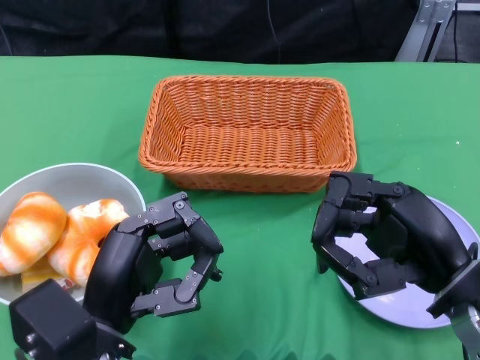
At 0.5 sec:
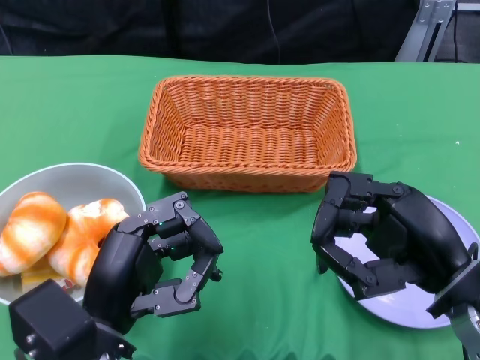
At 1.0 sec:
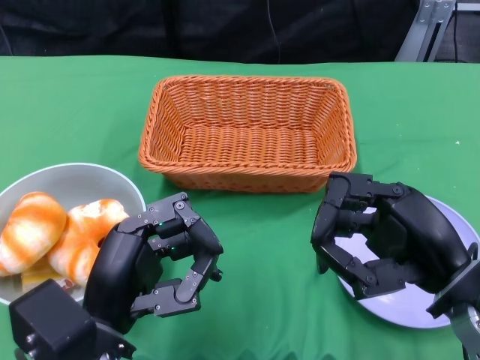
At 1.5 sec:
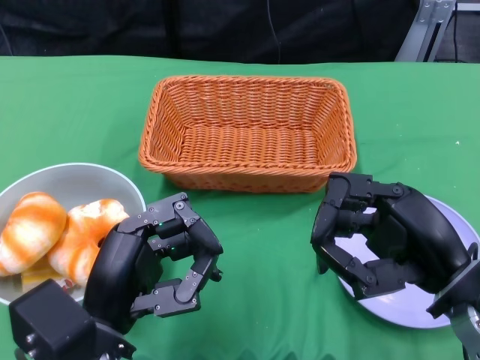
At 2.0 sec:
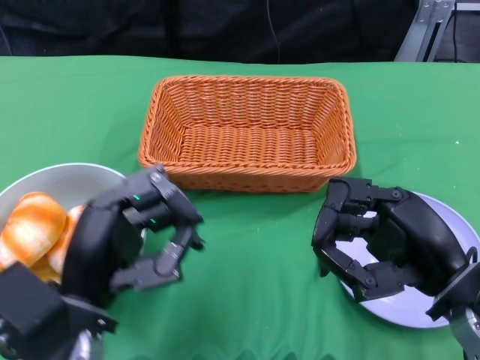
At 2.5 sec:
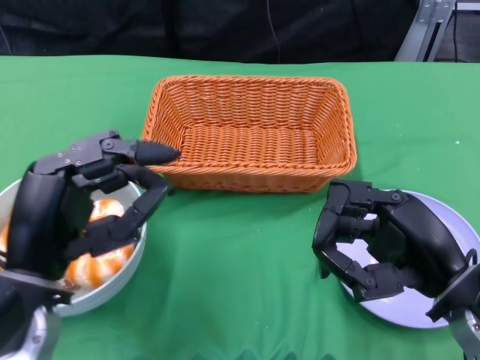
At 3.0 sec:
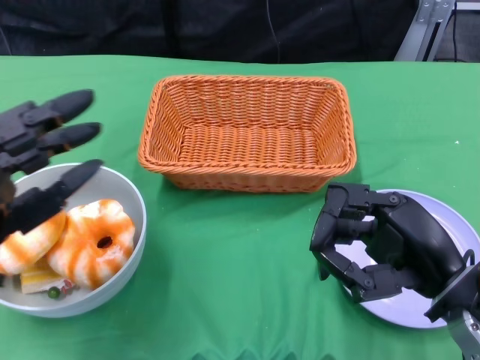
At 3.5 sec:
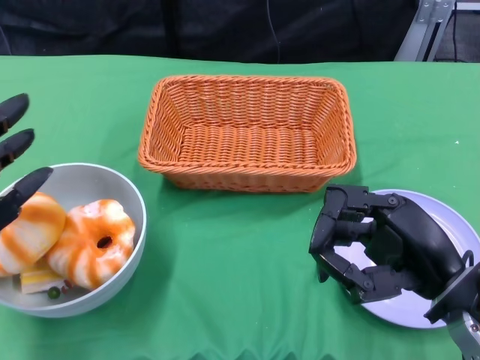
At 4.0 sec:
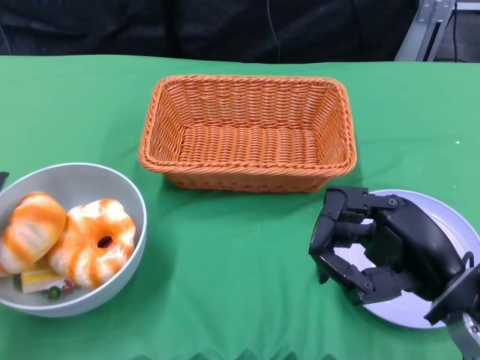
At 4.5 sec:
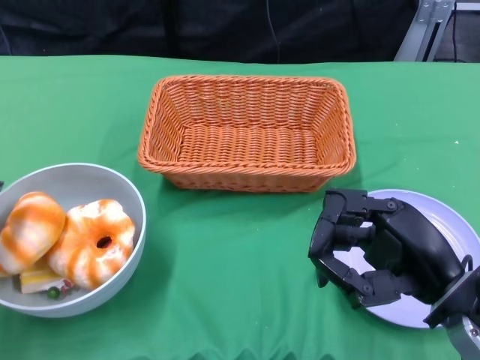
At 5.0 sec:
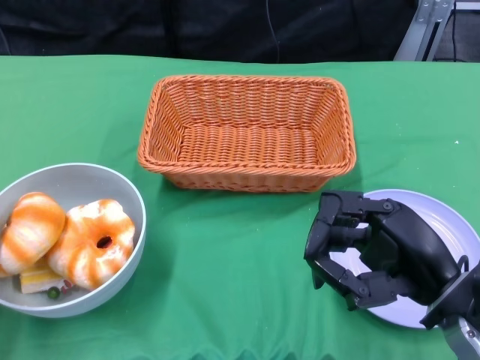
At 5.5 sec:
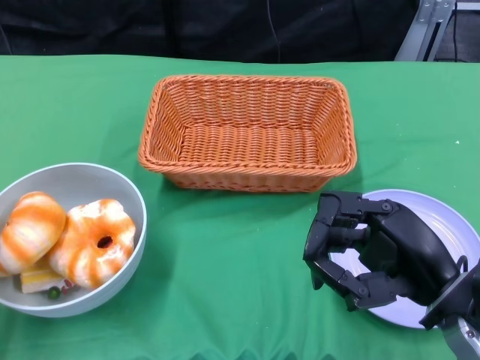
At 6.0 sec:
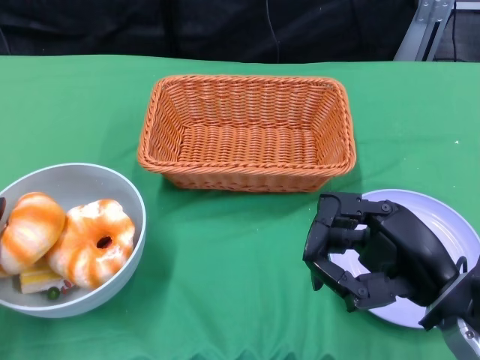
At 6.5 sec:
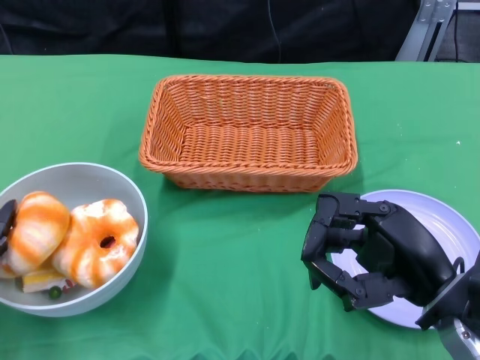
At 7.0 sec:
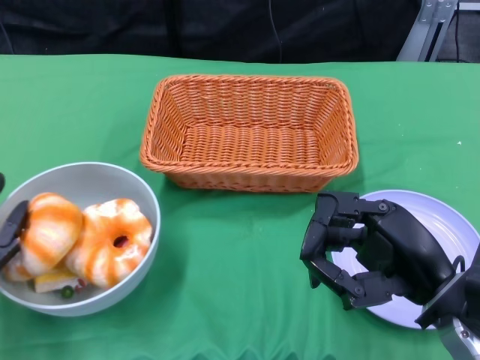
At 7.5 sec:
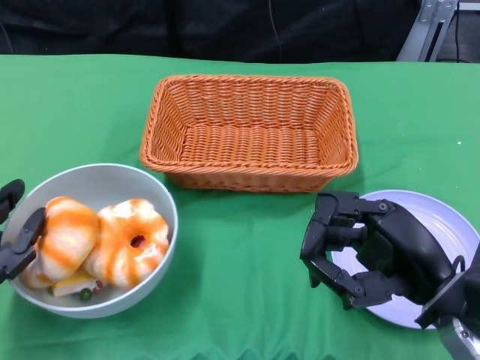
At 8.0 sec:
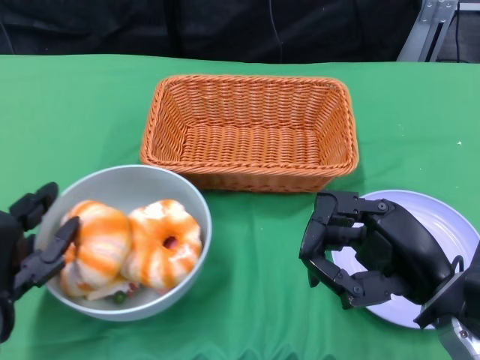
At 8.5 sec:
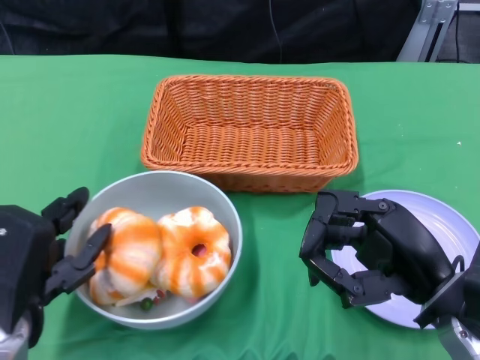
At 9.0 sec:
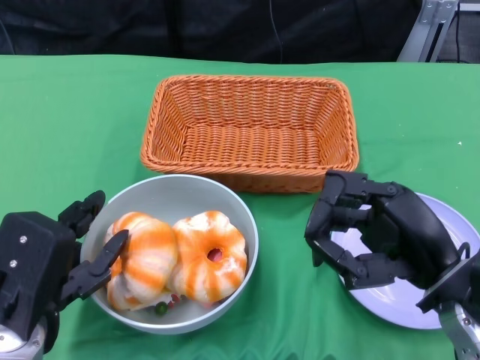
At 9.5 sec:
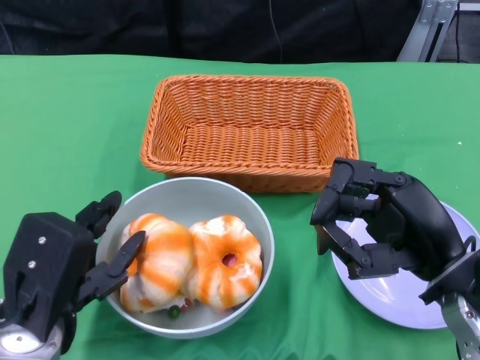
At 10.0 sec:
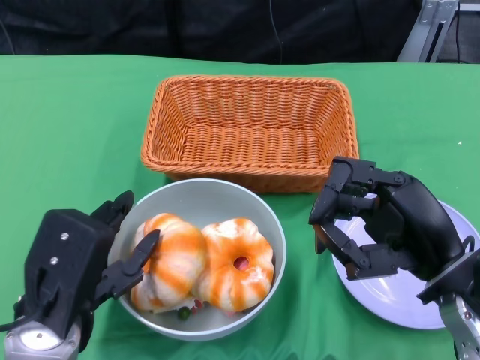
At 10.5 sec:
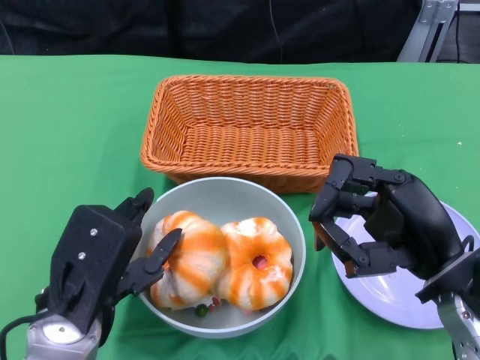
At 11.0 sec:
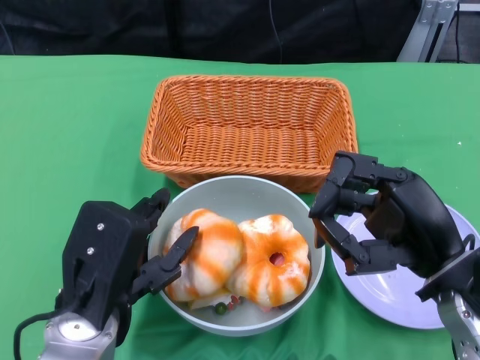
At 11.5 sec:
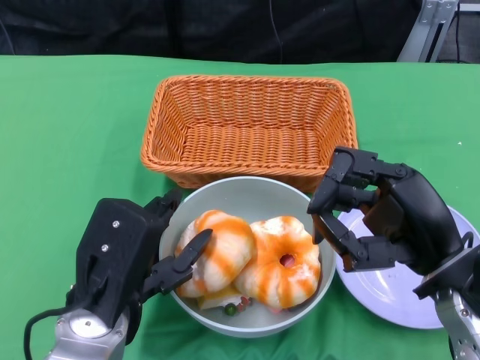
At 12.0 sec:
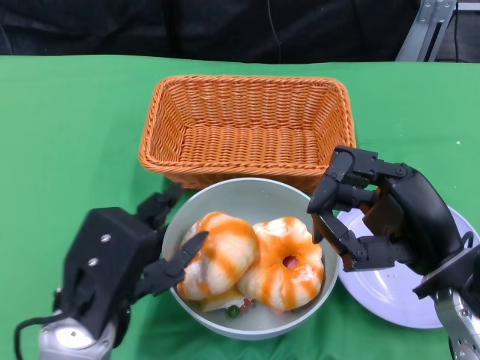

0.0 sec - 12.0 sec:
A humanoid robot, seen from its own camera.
2.0 sec - 4.0 sec: The left hand goes roughly 15 cm to the left.
6.0 sec - 8.0 sec: The left hand ends up about 5 cm from where it was.
8.0 sec - 10.0 sec: The left hand is displaced to the right by about 5 cm.

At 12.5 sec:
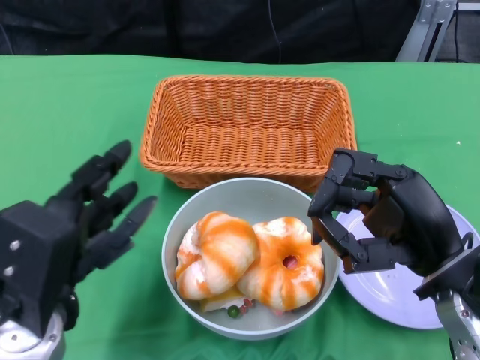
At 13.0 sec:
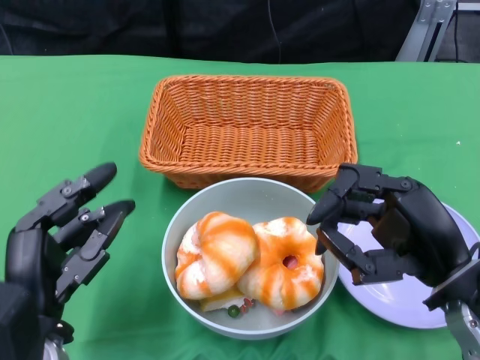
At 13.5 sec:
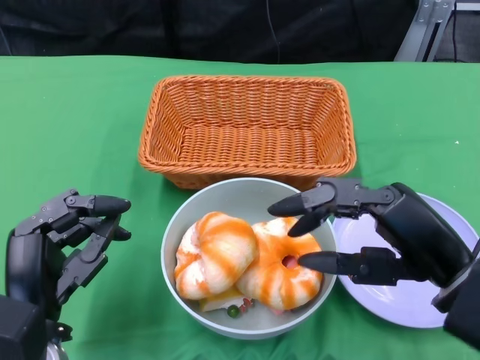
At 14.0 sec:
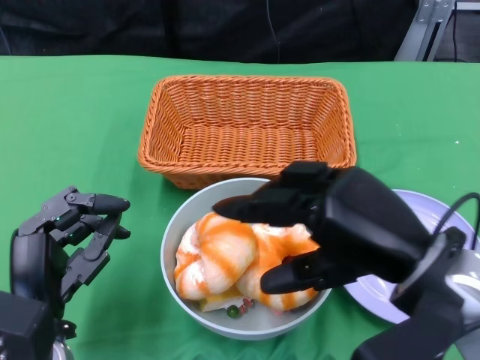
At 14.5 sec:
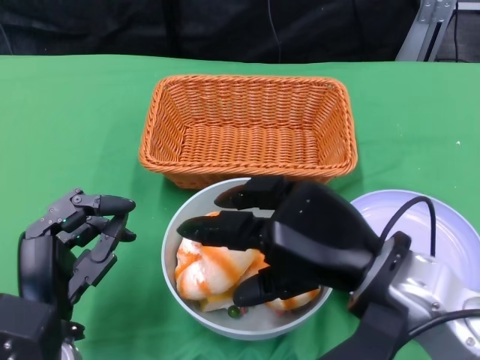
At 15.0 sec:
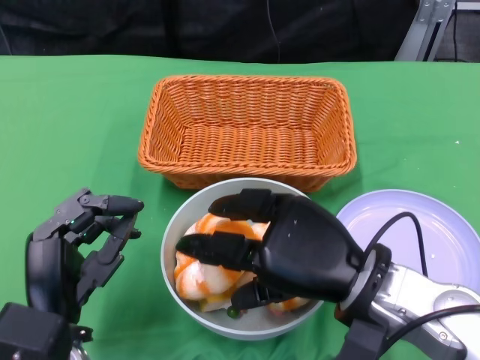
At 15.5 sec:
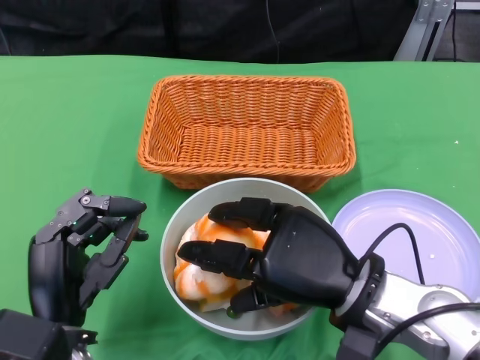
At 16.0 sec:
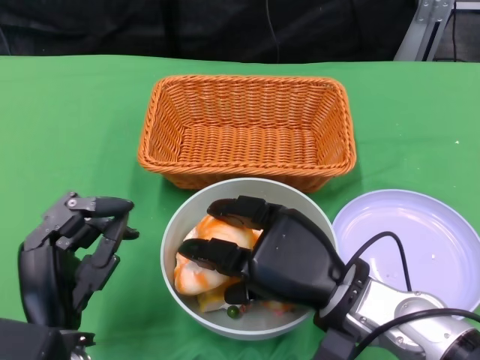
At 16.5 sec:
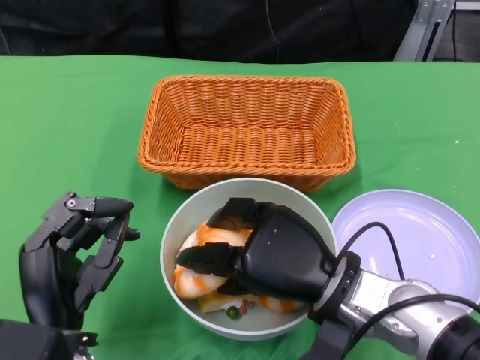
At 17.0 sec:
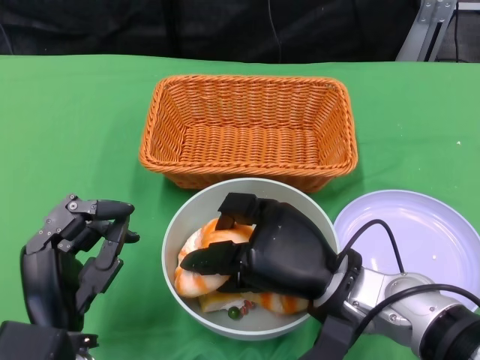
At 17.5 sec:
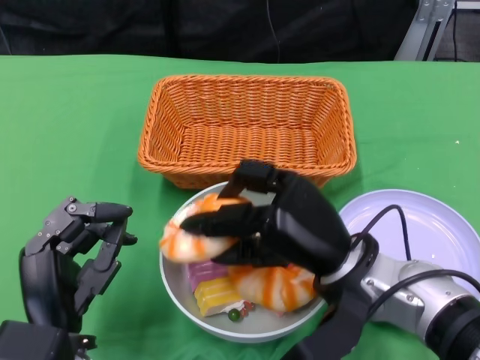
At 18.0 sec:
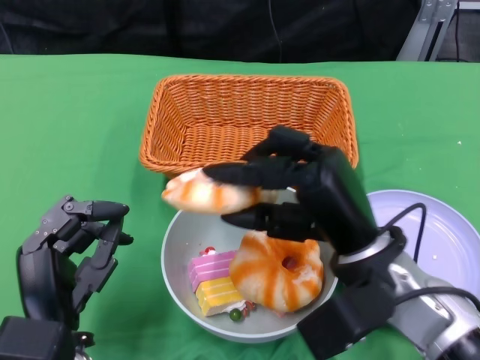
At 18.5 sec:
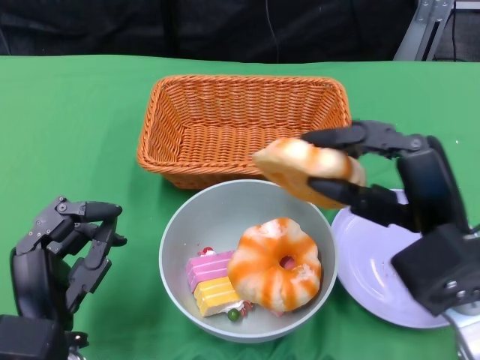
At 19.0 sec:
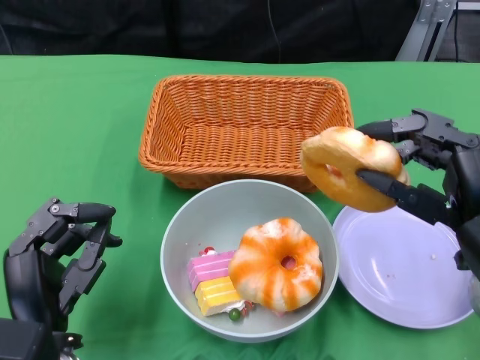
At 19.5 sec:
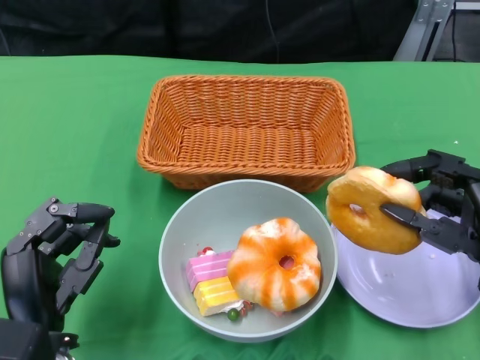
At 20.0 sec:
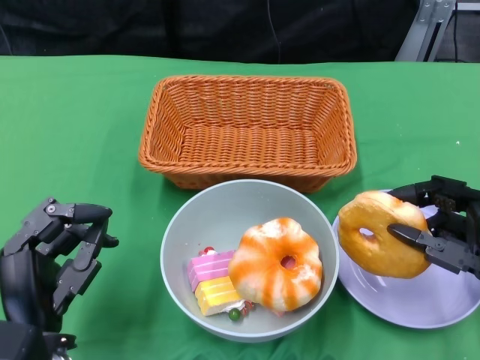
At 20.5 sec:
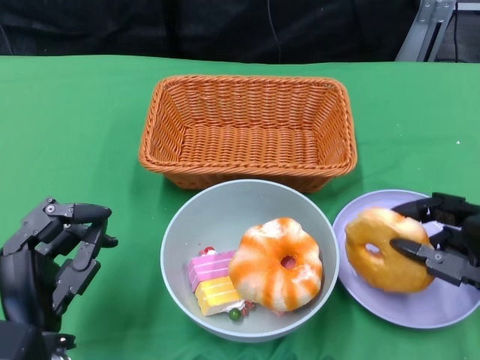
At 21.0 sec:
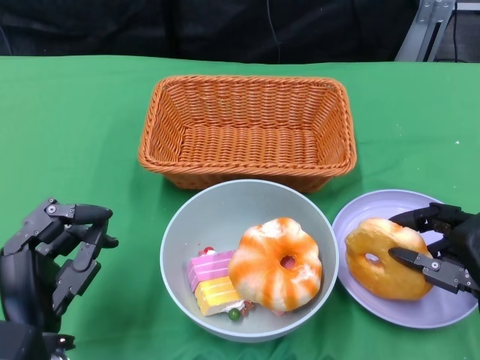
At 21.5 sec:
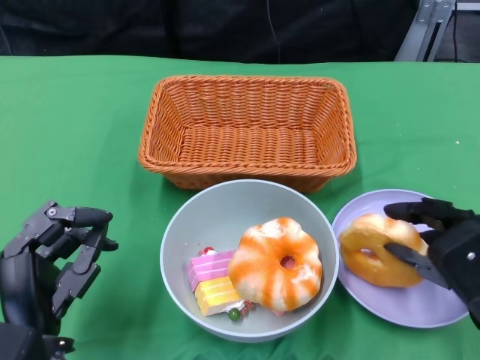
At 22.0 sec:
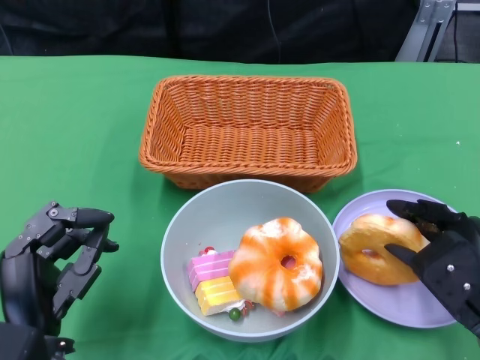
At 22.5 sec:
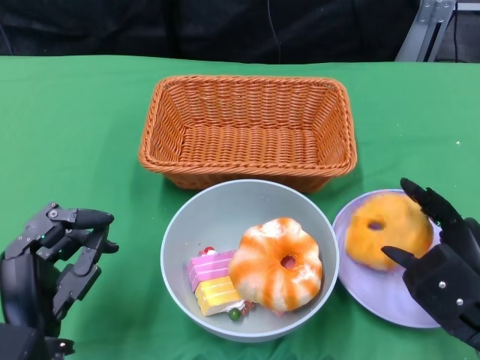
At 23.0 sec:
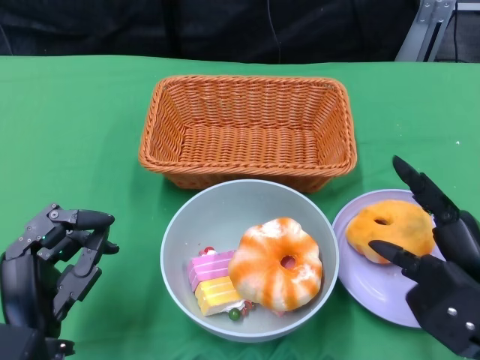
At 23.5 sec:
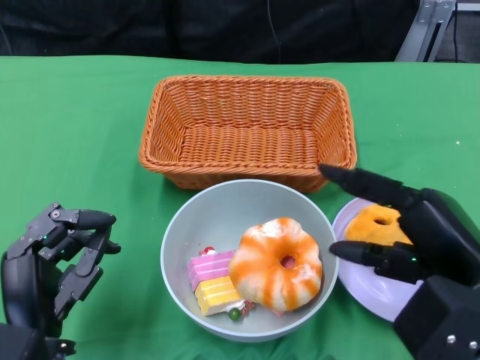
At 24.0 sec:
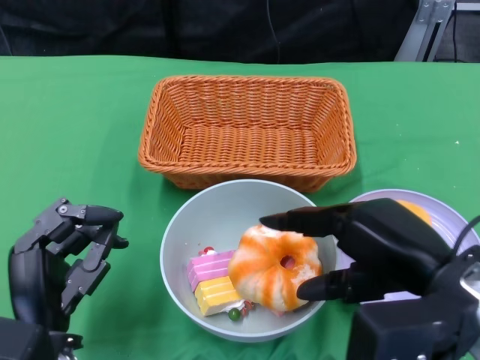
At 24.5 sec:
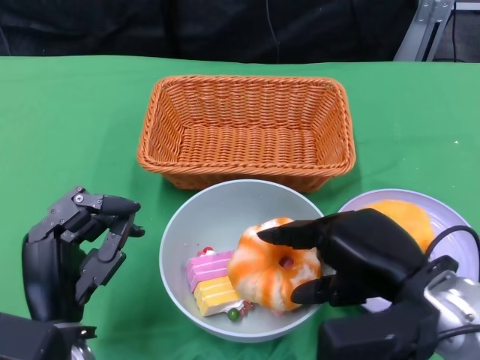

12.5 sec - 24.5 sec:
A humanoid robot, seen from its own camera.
Step, 13.0 sec - 22.5 sec: Pick up the bread with the right gripper and place it on the plate.
12.5 sec - 14.5 sec: The right hand goes approximately 5 cm to the left. Meanwhile the left hand goes roughly 5 cm downward.
14.5 sec - 16.5 sec: The right hand heads downward, covering approximately 10 cm.
16.5 sec - 18.5 sec: The right hand moves to the right and upward, some 10 cm.
18.5 sec - 20.5 sec: The right hand heads to the right, covering approximately 5 cm.
22.5 sec - 24.5 sec: The right hand is displaced to the left by approximately 5 cm.

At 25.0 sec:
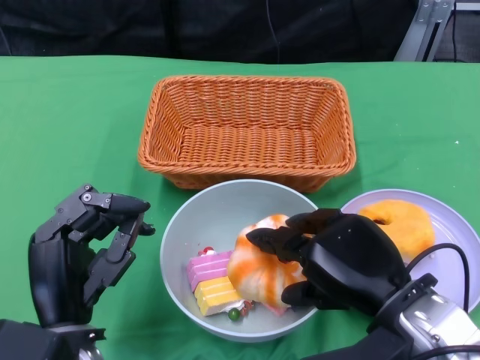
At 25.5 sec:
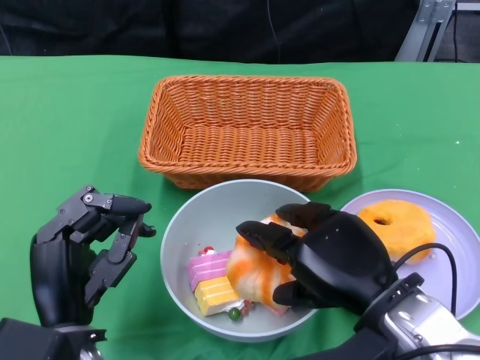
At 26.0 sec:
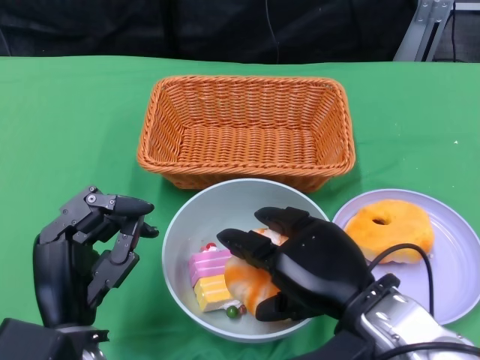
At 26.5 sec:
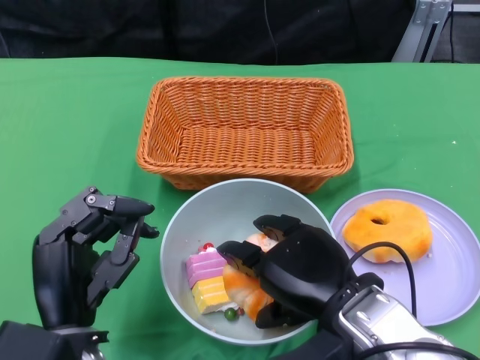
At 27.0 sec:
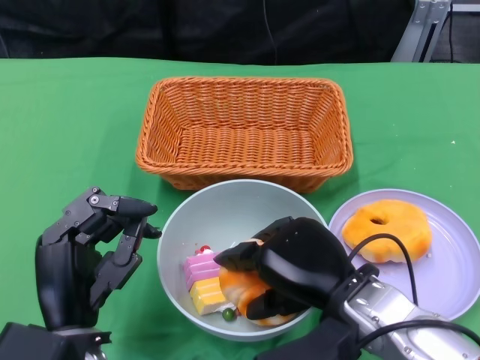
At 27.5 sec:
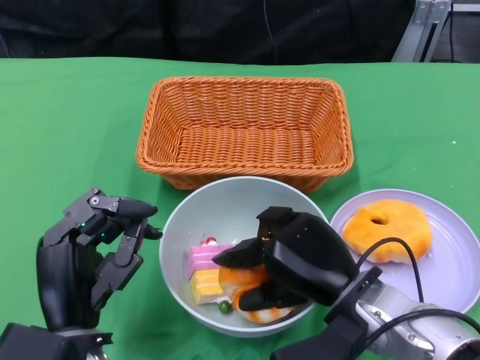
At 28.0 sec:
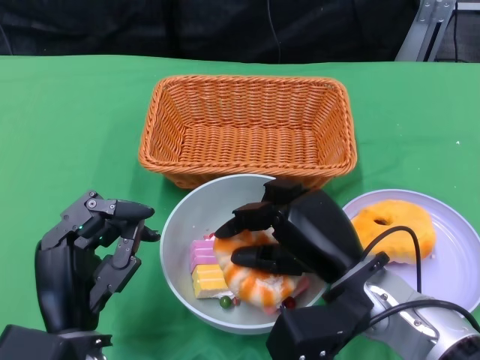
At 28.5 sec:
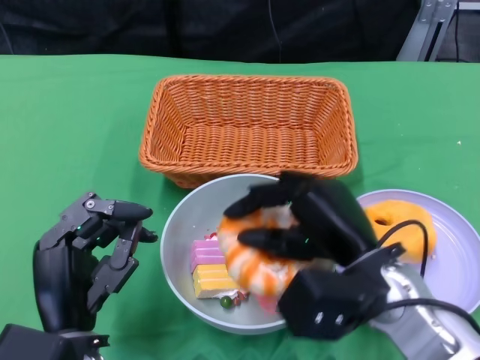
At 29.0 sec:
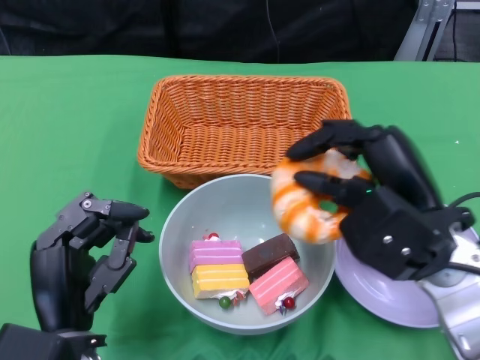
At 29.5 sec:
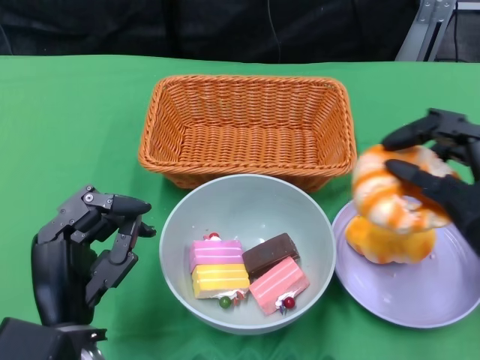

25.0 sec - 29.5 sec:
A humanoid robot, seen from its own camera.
25.0 sec - 27.0 sec: The right hand ends up some 5 cm from where it was.
27.0 sec - 29.5 sec: The right hand goes roughly 15 cm to the right.
